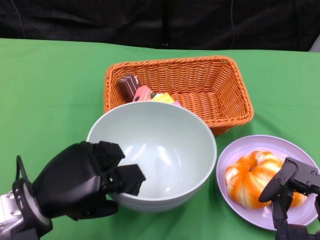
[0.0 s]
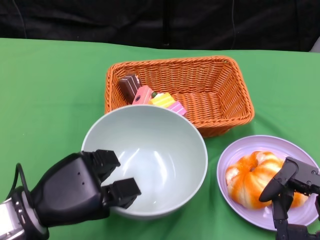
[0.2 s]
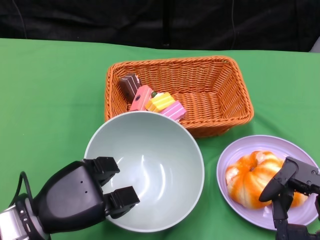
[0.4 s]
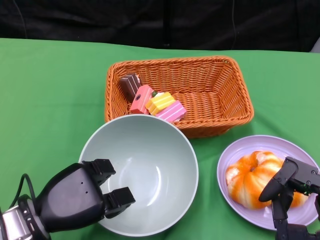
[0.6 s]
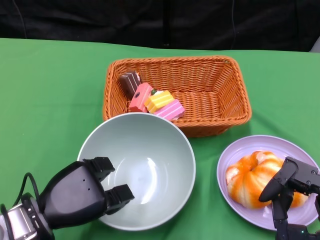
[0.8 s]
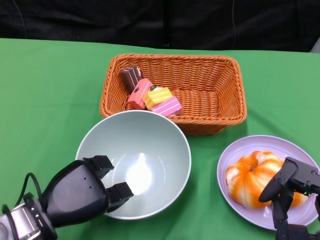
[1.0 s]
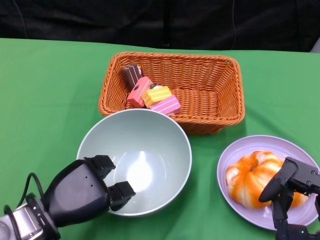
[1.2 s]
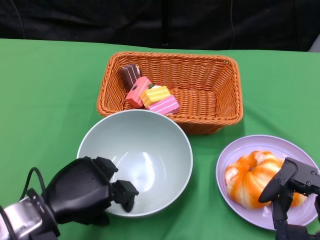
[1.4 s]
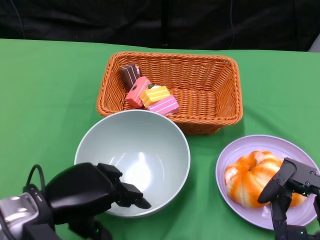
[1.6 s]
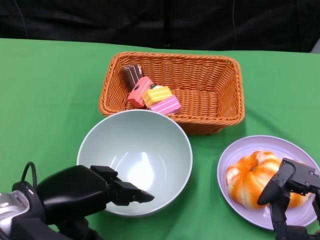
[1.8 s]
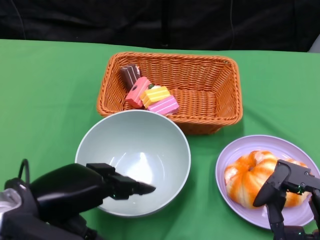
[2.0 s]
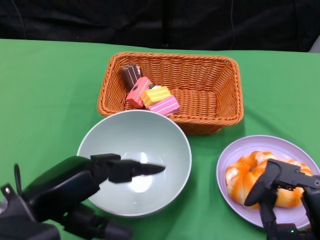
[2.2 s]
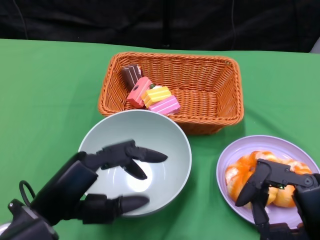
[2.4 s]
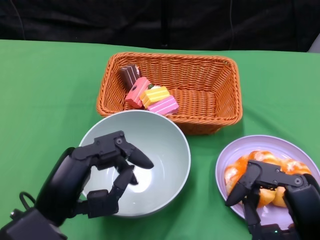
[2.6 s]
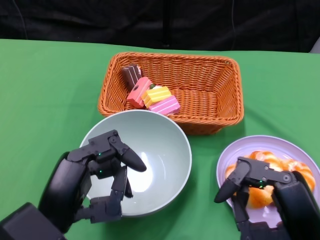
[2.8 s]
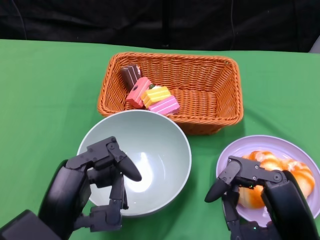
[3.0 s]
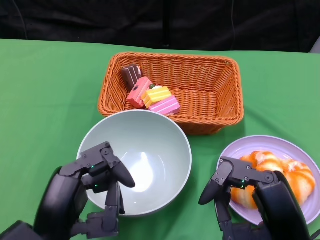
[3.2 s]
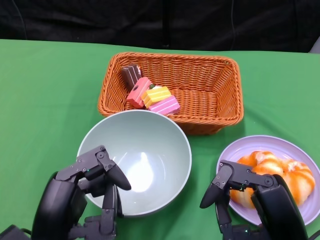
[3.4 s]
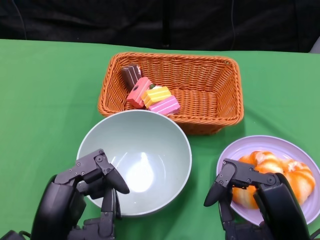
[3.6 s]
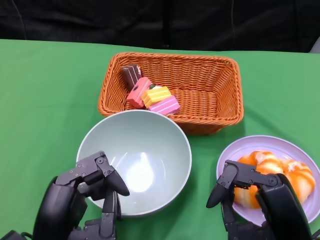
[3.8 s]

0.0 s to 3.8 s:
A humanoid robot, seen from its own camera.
0.0 to 1.2 s: The left hand is displaced downward by roughly 5 cm.
1.2 to 2.6 s: The left hand travels upward and backward by some 10 cm.

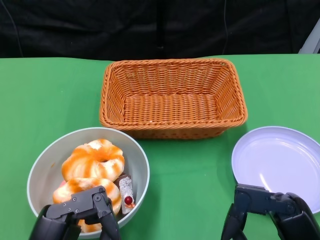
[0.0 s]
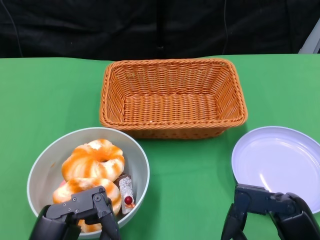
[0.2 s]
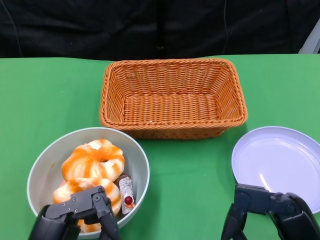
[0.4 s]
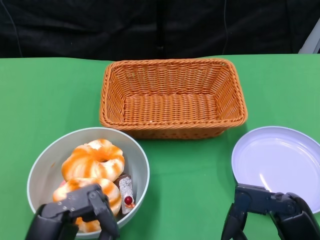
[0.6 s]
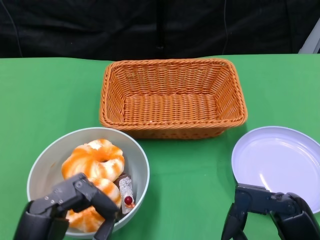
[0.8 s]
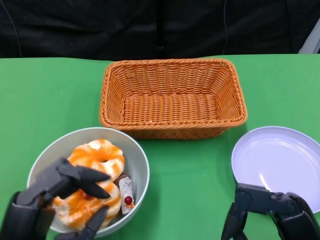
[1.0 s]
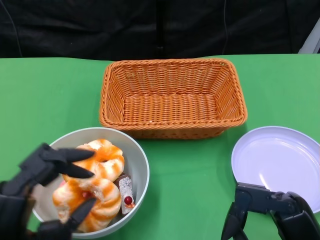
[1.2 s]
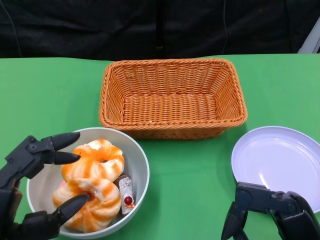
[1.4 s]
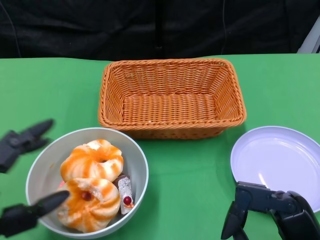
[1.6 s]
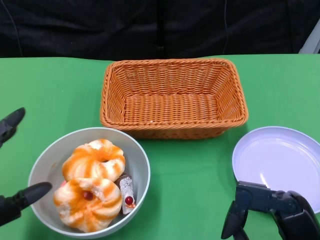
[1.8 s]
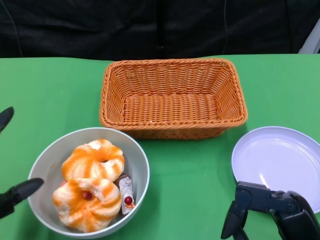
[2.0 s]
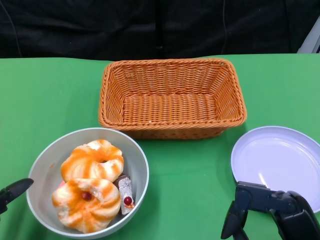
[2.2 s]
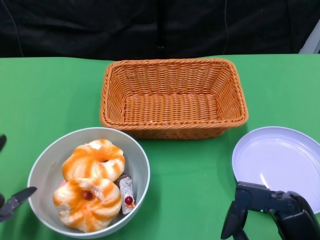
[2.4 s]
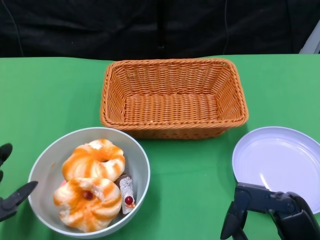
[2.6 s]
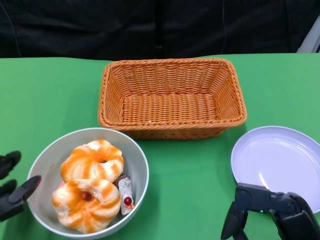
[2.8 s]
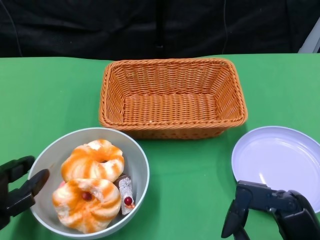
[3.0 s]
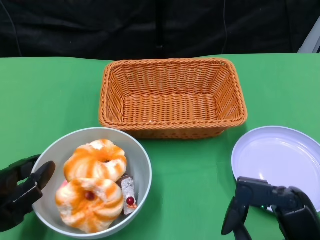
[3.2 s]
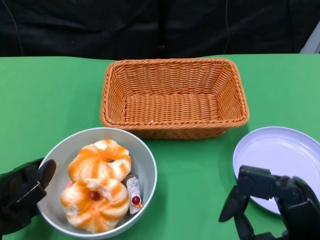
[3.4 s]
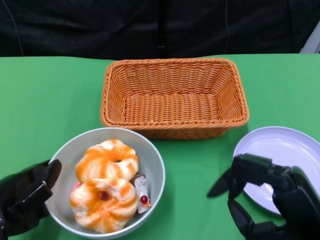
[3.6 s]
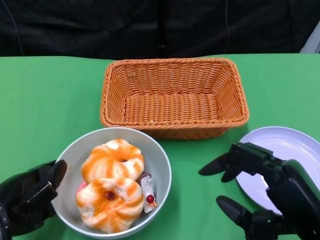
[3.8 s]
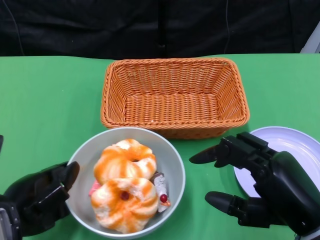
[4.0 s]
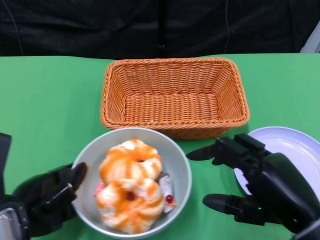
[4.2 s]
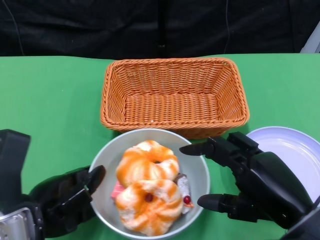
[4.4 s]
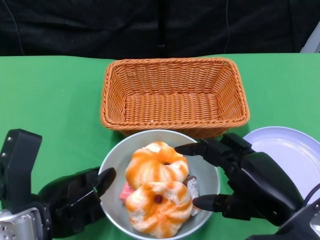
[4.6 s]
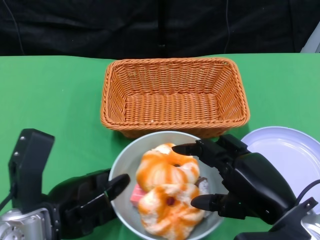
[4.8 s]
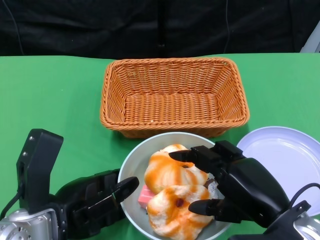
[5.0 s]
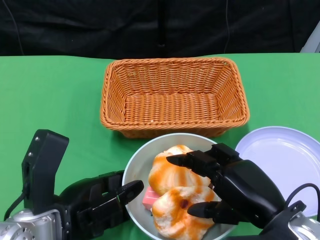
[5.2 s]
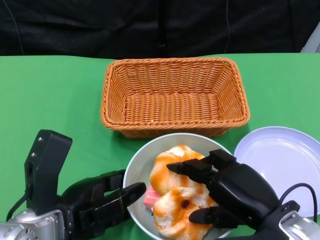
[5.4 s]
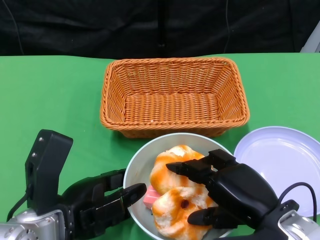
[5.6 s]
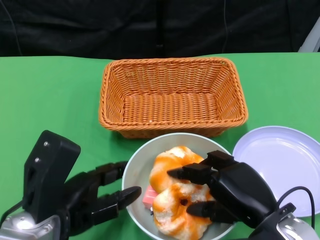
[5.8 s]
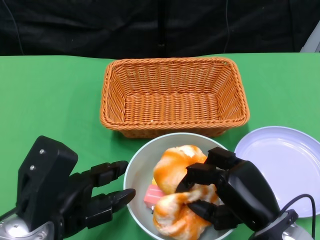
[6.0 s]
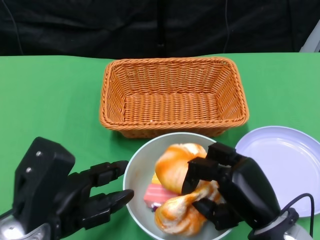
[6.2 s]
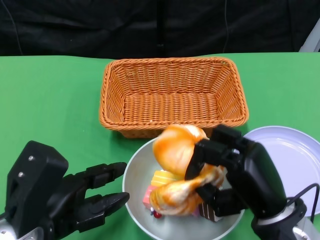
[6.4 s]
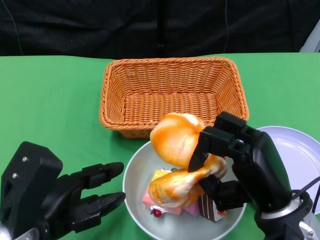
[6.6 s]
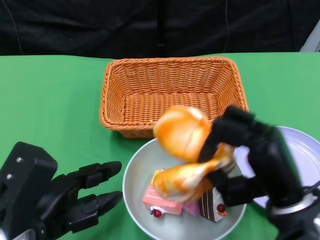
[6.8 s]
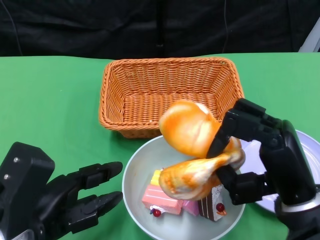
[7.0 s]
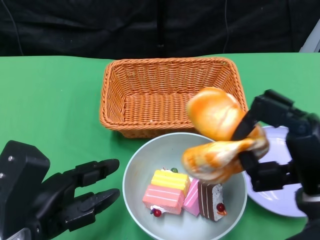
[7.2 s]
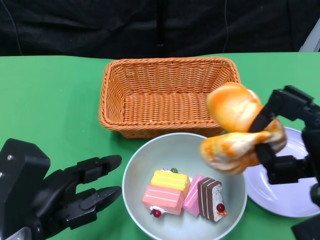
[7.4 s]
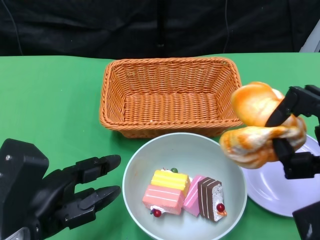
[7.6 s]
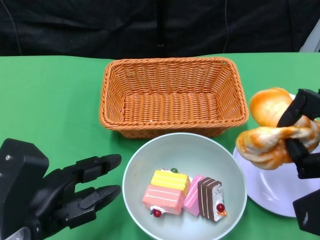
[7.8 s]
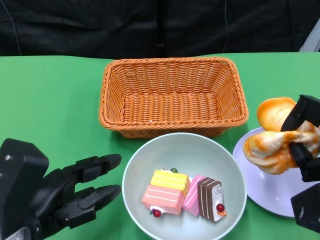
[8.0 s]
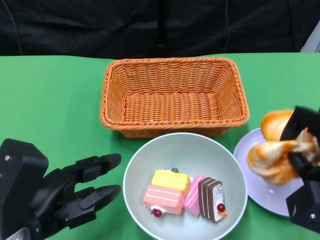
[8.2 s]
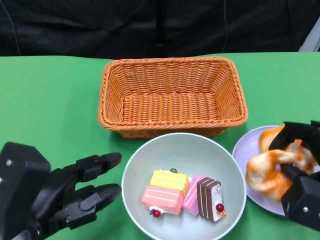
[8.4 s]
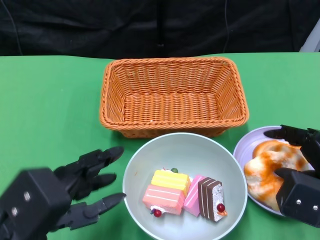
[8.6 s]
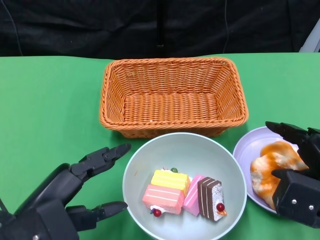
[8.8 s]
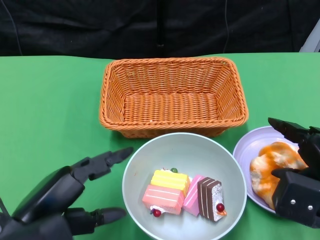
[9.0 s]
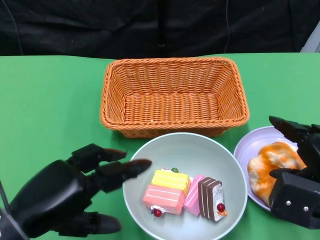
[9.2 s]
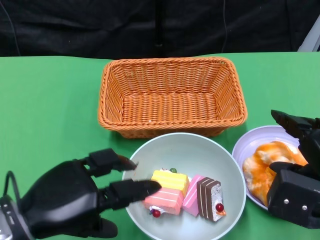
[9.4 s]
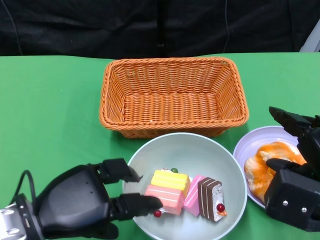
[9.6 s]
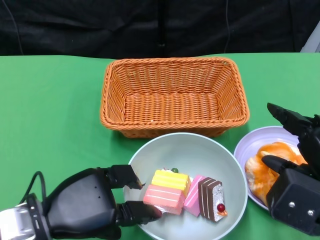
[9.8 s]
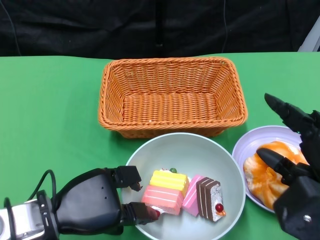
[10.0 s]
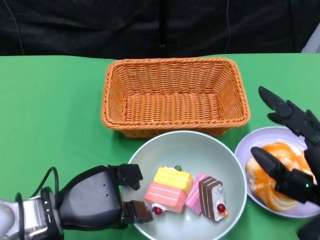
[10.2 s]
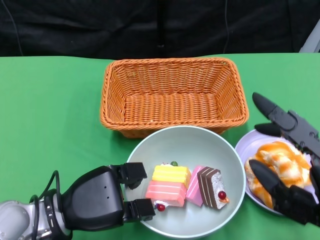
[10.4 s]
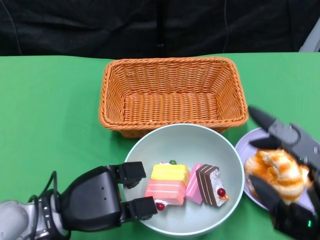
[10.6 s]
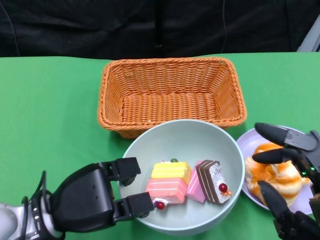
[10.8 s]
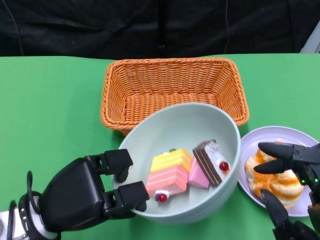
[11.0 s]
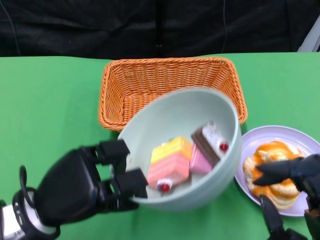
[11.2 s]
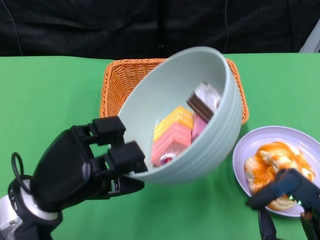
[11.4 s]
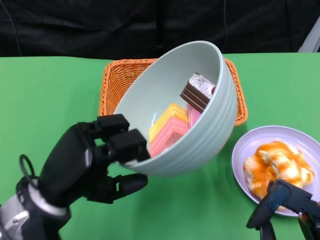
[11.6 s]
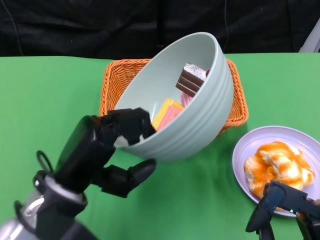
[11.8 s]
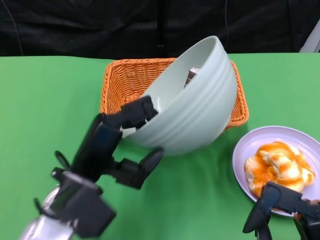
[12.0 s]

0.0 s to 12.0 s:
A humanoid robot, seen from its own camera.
Step, 0.0 to 4.6 s: Push the bowl to the center of the table using the left gripper.
Step, 4.8 to 9.4 s: Pick up the bread with the right gripper and place it on the plate.
Step, 9.6 to 10.8 s: Grasp the bowl with the left gripper.
1.6 to 3.0 s: The left hand travels forward by some 5 cm.
3.0 to 4.4 s: The right hand shifts by some 5 cm. The left hand shifts some 5 cm to the right.
4.4 to 6.0 s: The right hand goes about 5 cm downward.
6.0 to 7.6 s: The right hand is displaced to the right and upward by some 10 cm.
9.0 to 10.4 s: The left hand goes roughly 10 cm downward and forward. The right hand goes roughly 10 cm backward and upward.
10.4 to 12.0 s: The right hand goes roughly 5 cm downward. Meanwhile the left hand moves upward, roughly 5 cm.

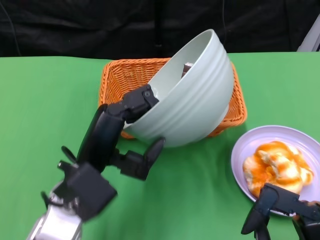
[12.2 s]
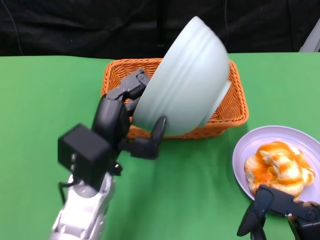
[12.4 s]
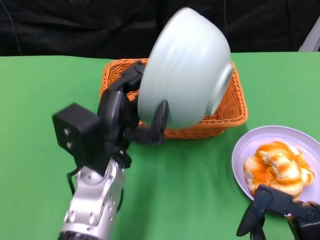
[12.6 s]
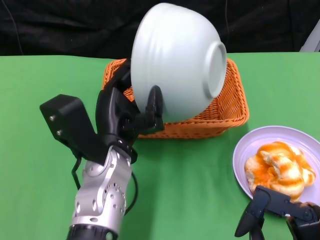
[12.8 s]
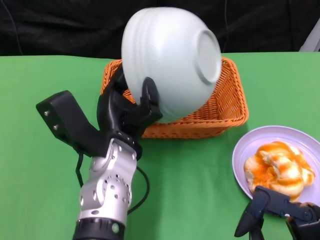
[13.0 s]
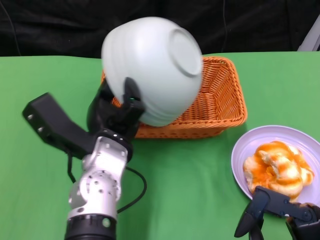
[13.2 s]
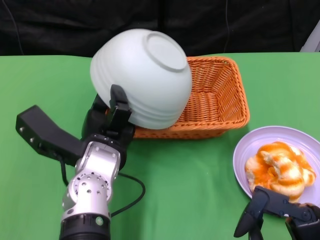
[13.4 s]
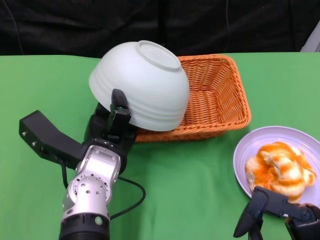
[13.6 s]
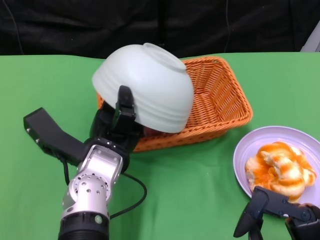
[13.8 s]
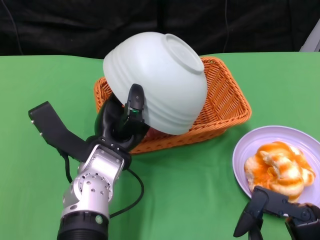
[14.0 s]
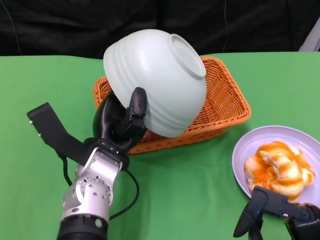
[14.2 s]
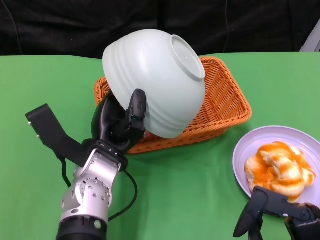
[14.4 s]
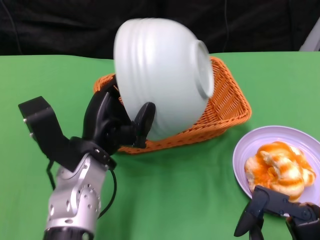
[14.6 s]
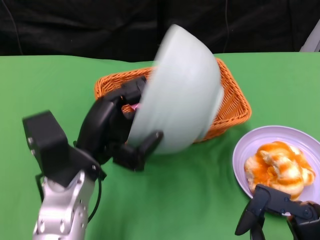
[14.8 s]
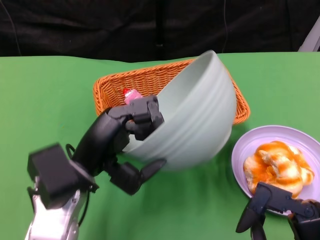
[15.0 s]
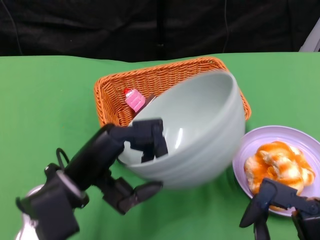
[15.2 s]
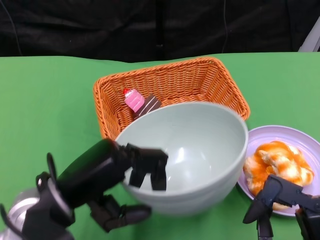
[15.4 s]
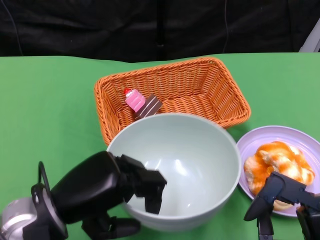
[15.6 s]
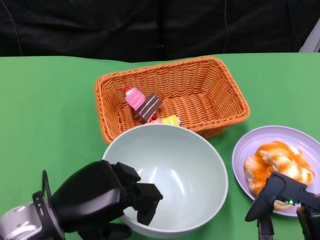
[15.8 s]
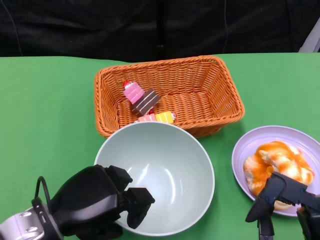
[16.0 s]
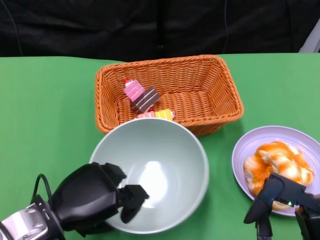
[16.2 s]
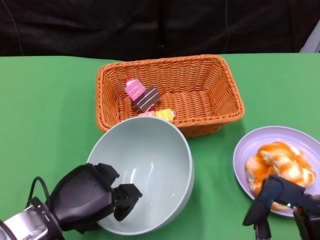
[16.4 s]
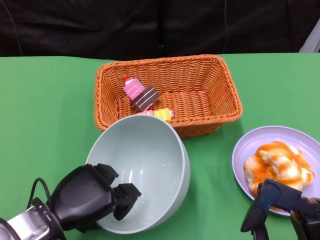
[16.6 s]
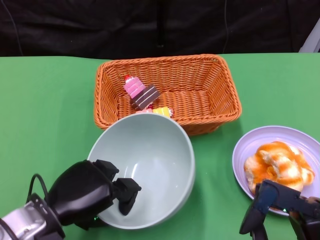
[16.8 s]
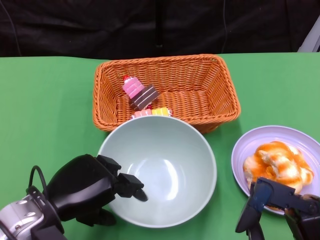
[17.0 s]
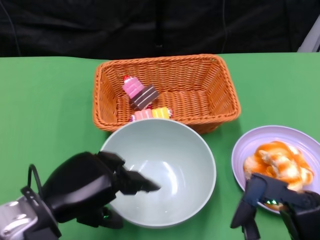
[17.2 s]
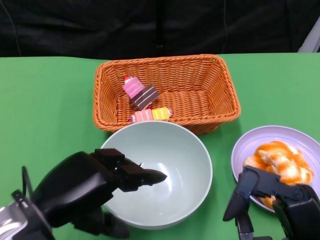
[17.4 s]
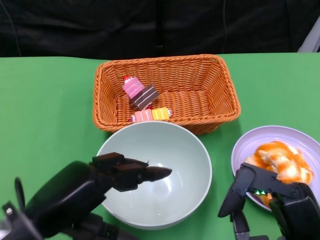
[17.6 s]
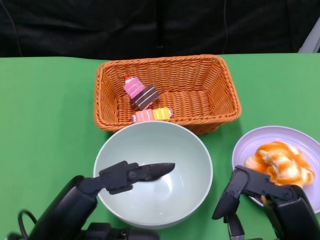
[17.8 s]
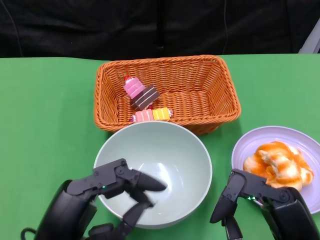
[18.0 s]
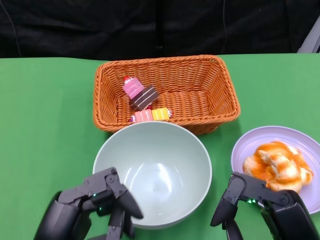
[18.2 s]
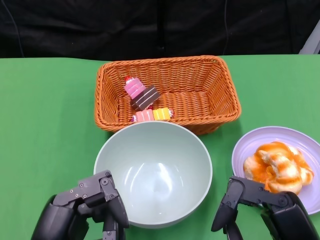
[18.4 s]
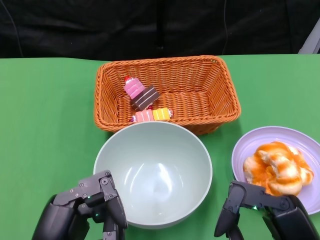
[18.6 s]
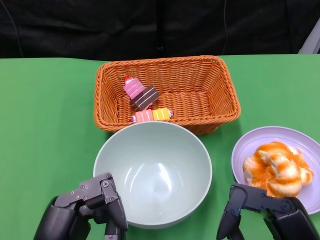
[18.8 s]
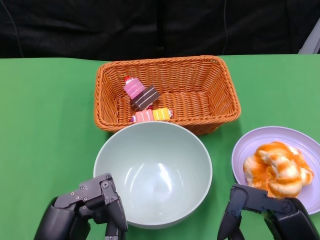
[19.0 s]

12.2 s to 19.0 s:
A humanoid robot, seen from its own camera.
Step, 12.2 to 14.2 s: Pour the cake into the basket with the left gripper.
Step, 14.4 to 17.4 s: Place the bowl on the table with the left gripper.
12.2 to 13.6 s: The left hand shifts by roughly 5 cm.
13.6 to 15.0 s: The left hand ends up some 5 cm from where it was.
15.0 to 16.2 s: The left hand shifts by approximately 5 cm.
16.2 to 17.6 s: The left hand shifts about 5 cm upward.
17.6 to 19.0 s: The left hand travels backward by some 5 cm.
